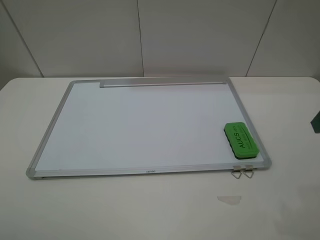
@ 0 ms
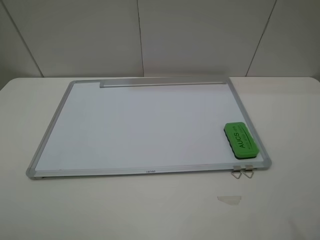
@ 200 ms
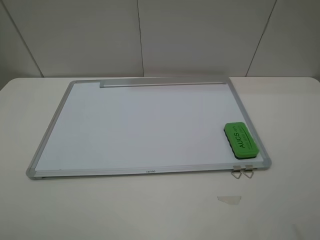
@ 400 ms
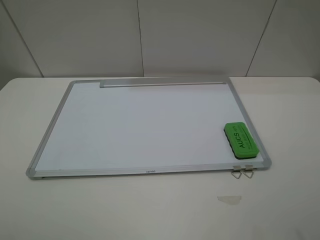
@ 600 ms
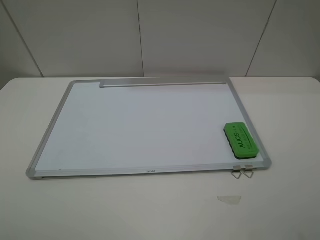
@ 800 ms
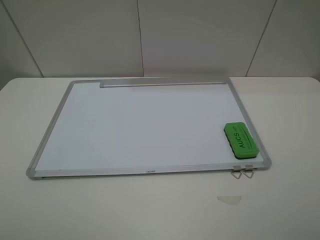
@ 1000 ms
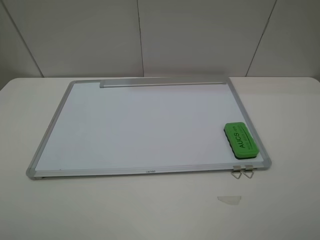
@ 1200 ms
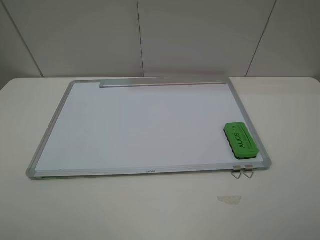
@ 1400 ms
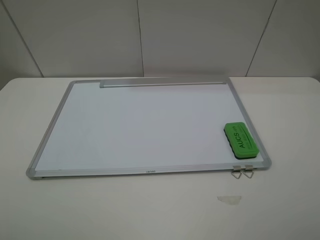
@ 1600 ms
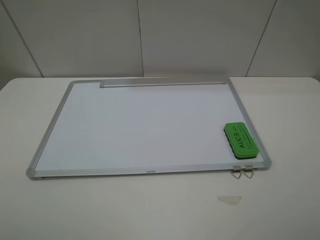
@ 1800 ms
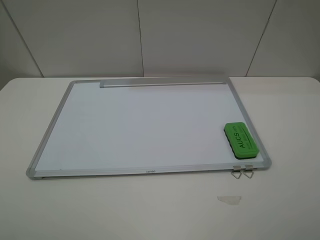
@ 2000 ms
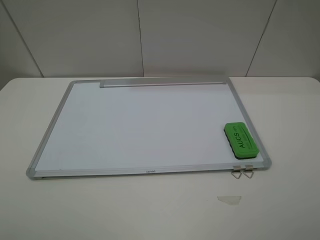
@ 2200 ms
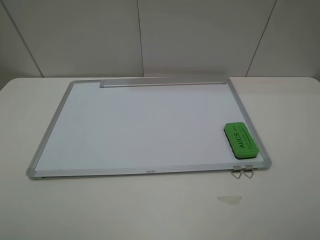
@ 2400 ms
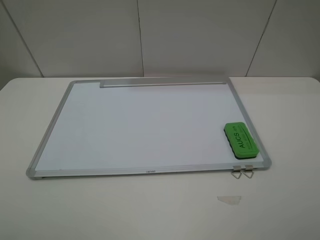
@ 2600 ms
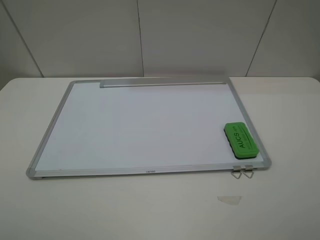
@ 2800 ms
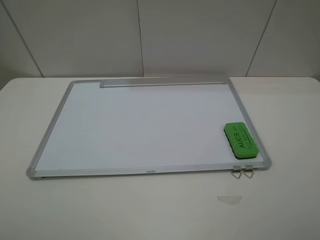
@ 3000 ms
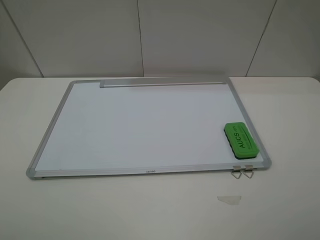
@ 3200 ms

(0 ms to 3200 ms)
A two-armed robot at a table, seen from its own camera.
1600 ms - 3200 ms: Both grippers stay about where they are.
